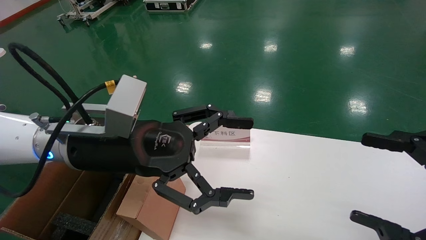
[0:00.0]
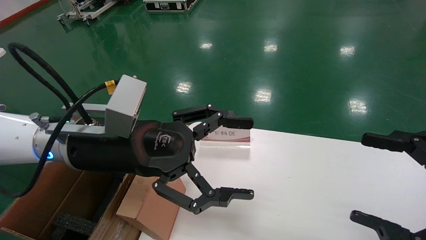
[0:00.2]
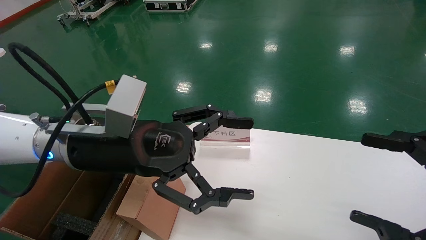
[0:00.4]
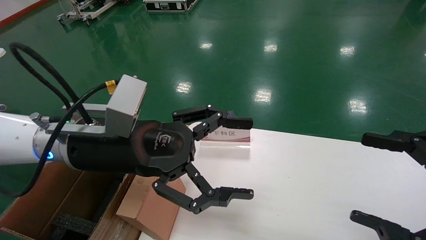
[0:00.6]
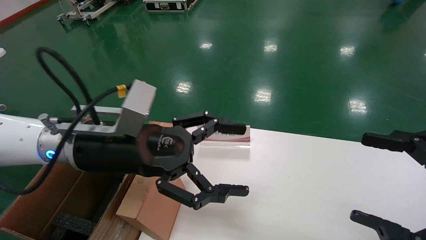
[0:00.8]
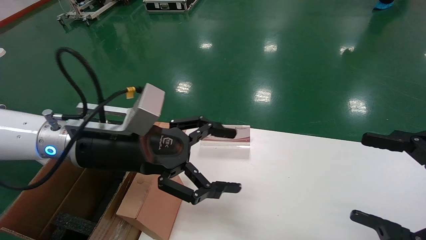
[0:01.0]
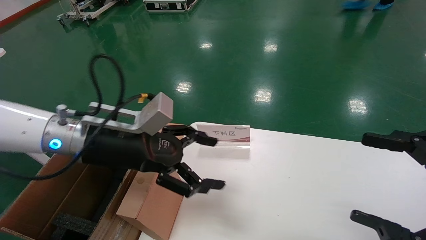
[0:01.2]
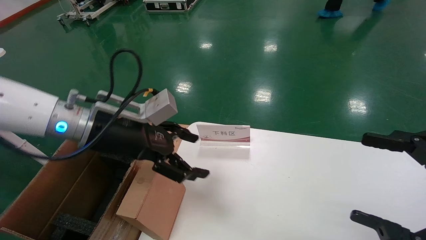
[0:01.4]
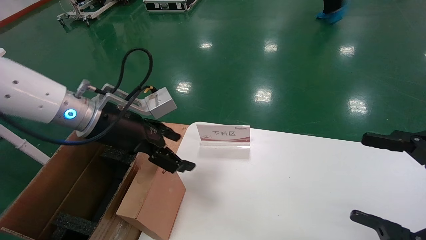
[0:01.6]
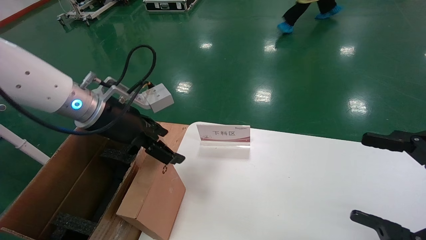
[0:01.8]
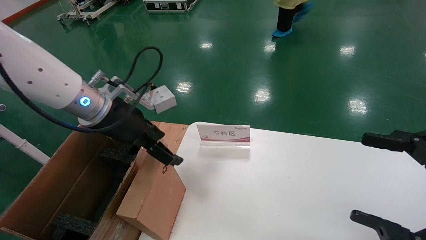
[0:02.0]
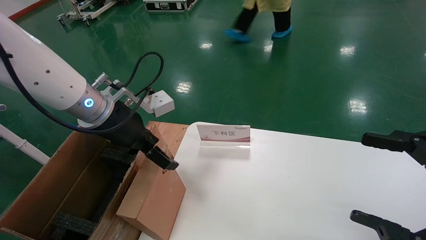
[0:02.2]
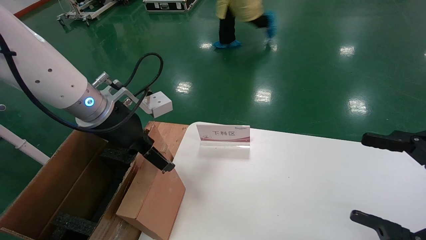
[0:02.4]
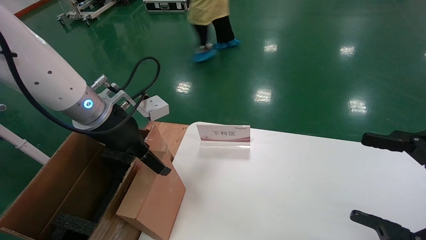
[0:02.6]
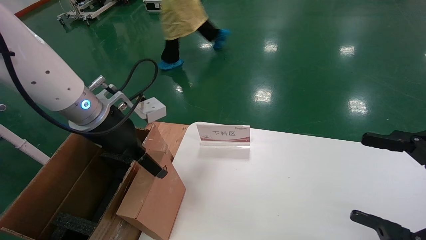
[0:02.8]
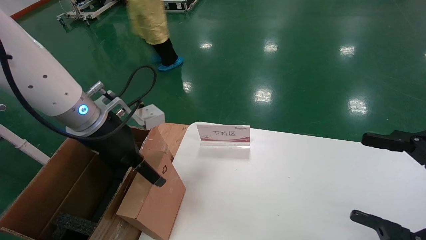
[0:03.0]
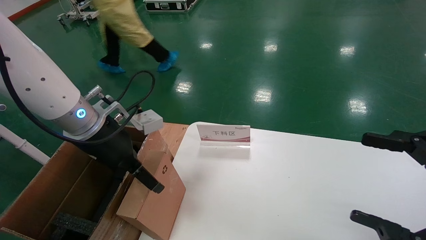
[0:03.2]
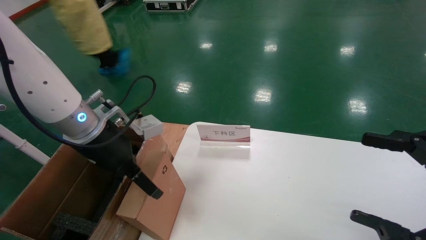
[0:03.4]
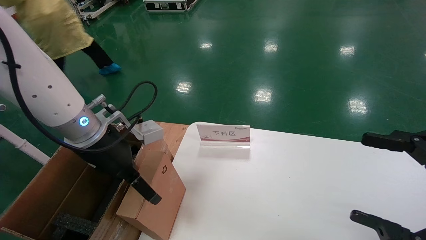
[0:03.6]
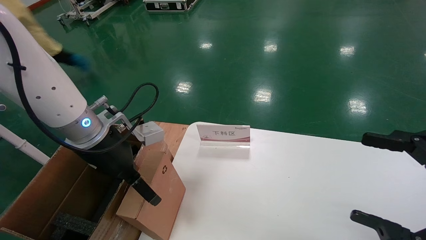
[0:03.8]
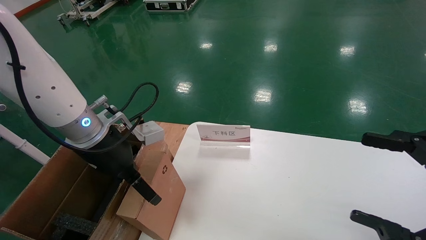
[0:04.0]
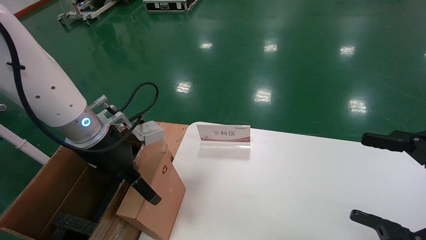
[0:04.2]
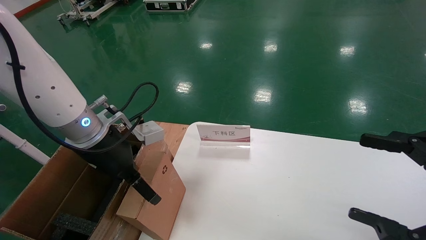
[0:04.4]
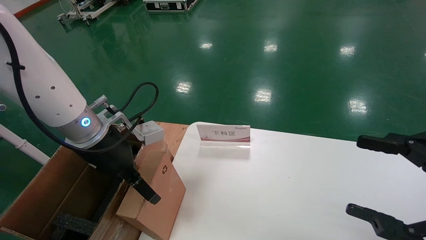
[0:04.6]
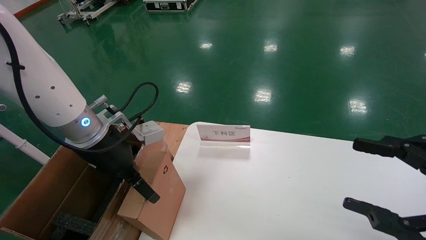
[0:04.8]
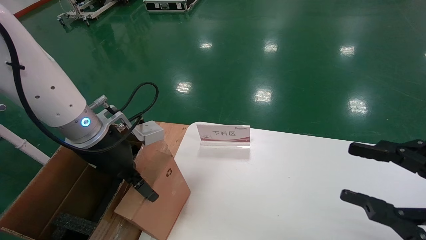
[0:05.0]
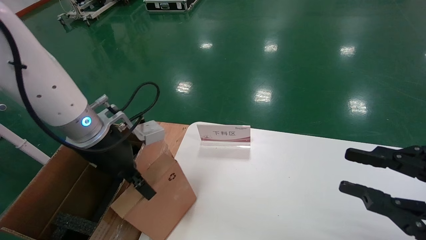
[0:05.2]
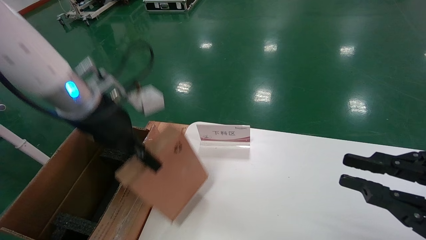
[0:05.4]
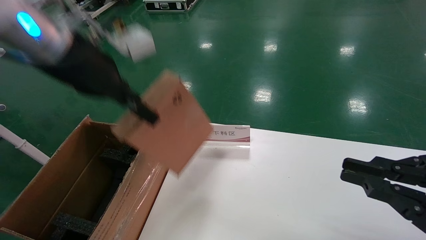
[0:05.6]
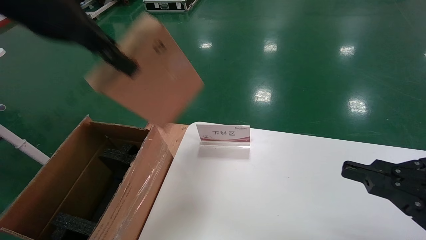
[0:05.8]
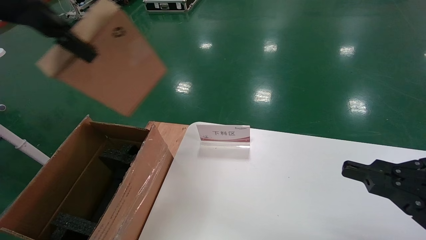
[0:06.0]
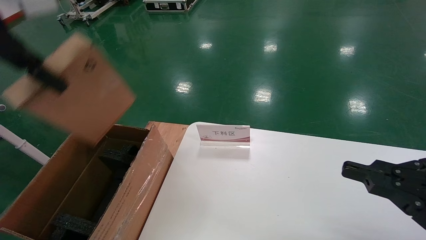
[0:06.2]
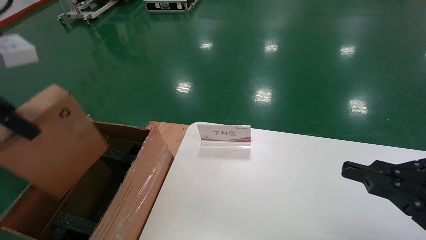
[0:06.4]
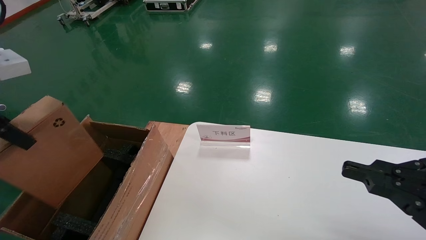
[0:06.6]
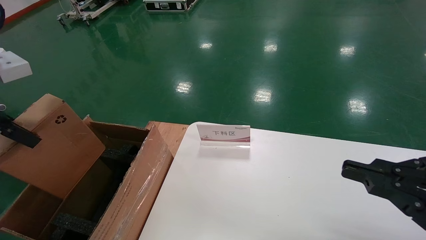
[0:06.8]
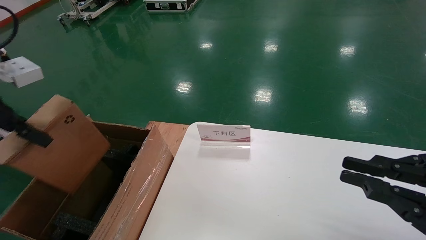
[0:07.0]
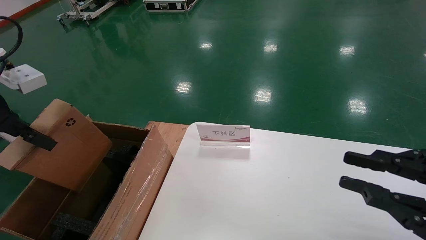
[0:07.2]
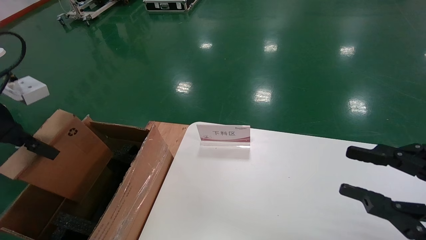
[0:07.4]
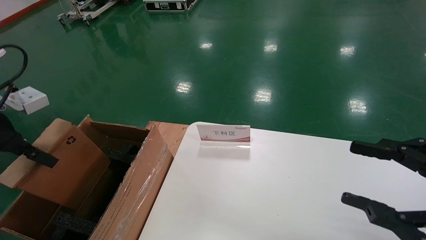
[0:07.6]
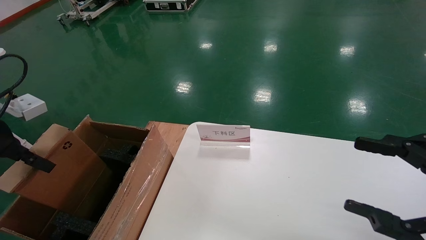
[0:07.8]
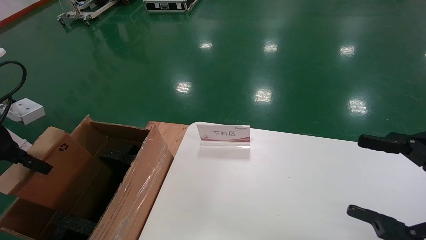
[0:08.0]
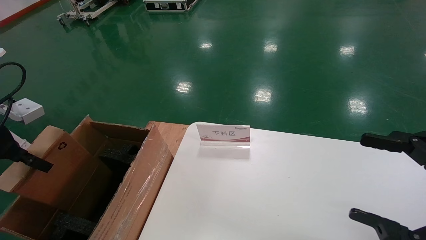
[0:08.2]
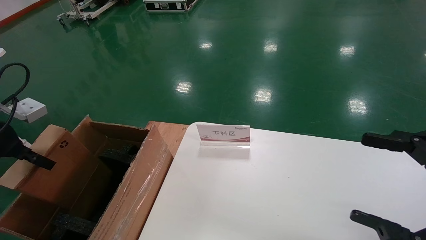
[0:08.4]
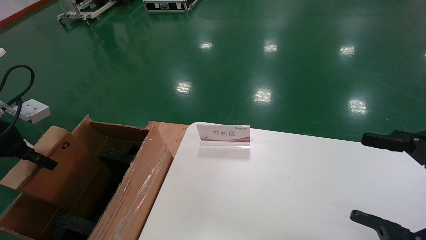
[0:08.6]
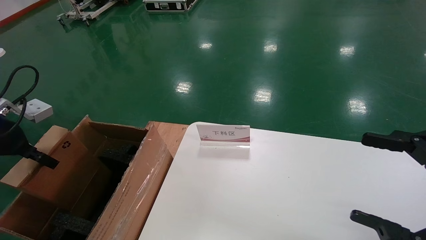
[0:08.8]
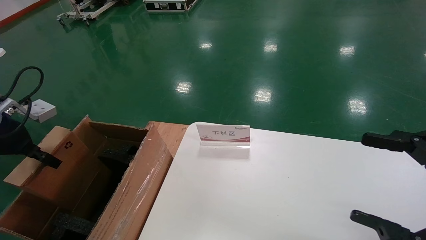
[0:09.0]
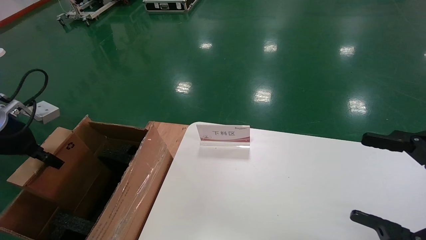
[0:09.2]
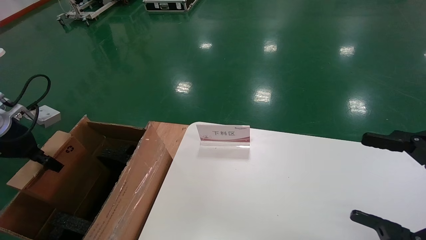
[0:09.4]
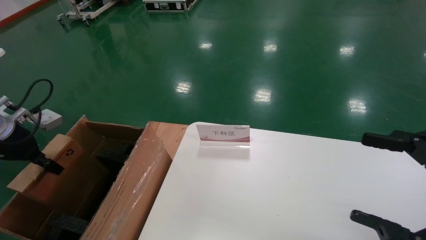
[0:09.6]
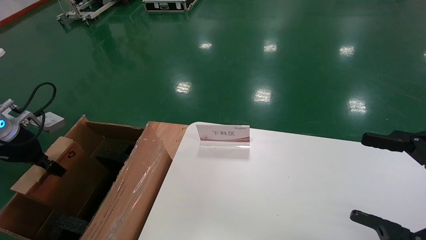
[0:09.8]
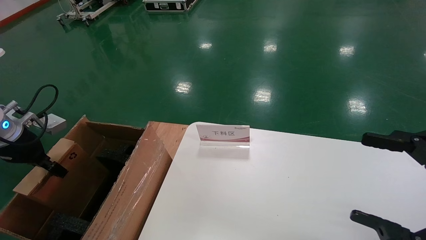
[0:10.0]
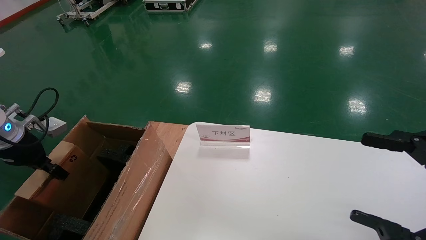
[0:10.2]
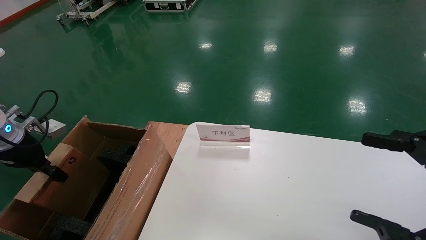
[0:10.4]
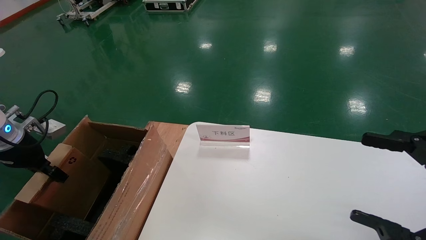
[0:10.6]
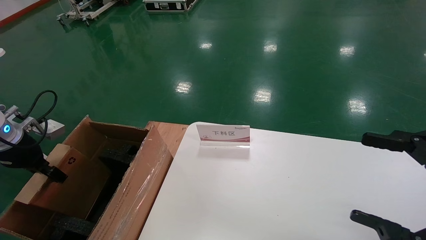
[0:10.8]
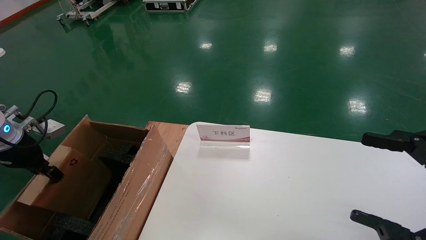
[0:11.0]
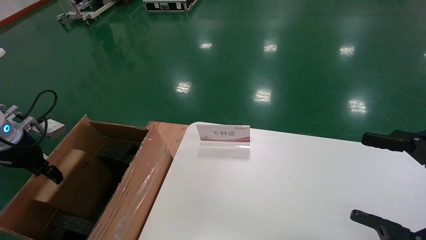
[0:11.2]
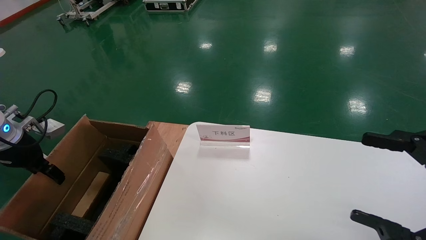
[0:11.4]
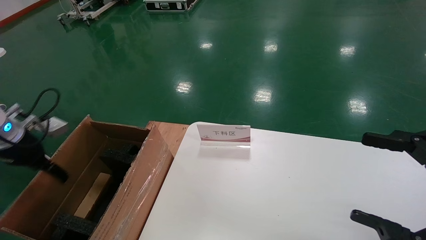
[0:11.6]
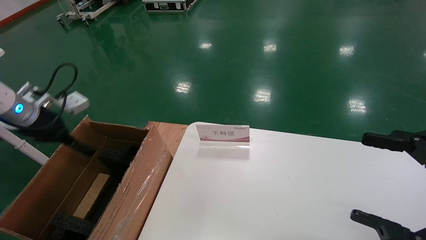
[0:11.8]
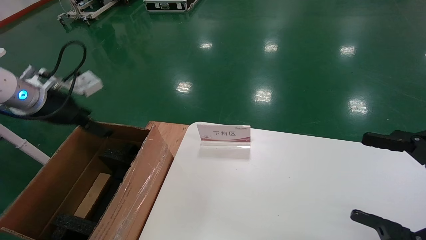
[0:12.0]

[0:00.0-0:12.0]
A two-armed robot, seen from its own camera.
Task of the whole recording: pick up the small cardboard box and load it into the large cardboard box.
Step, 0:01.0 to 0:05.2: Pick up the mouse and power cord box.
Step, 0:05.4 to 0:11.2: Place the mouse and power cord box into the case.
0:00.0 to 0:01.6: The left gripper moves forward, some 5 cm.
0:03.0 to 0:04.4: There are only small adjustments of the grippers.
0:04.4 to 0:06.0: The left gripper goes some 20 cm upward, and closes its fingers. Meanwhile the right gripper closes its fingers.
0:06.0 to 0:07.6: The left gripper shifts some 20 cm downward and to the left; the right gripper opens.
0:07.6 to 0:09.0: The right gripper opens; the left gripper shifts some 5 cm forward.
0:09.0 to 0:10.4: The left gripper is displaced downward by about 5 cm.
0:10.4 to 0:12.0: The left gripper travels upward and to the right by roughly 10 cm, and opens up.

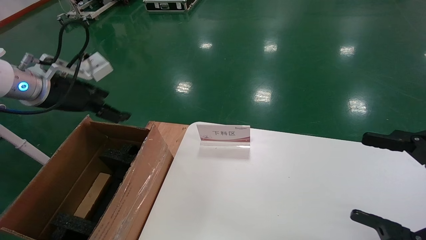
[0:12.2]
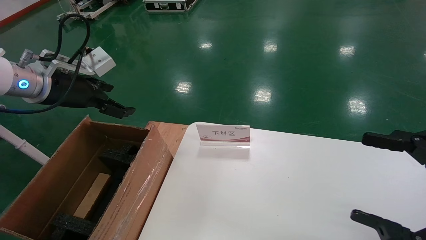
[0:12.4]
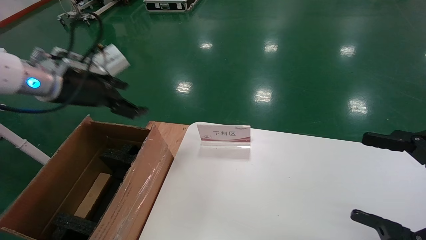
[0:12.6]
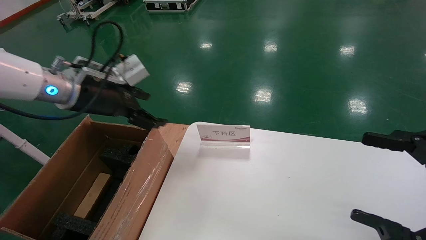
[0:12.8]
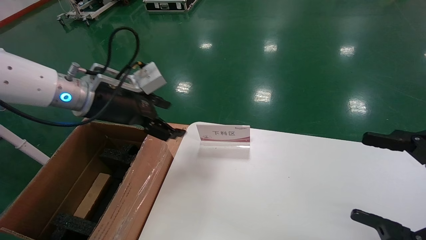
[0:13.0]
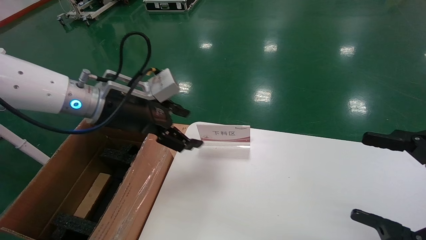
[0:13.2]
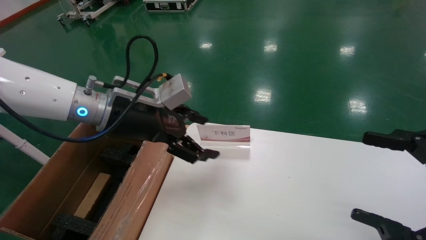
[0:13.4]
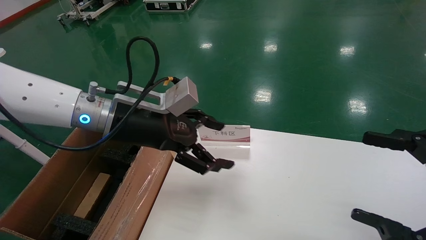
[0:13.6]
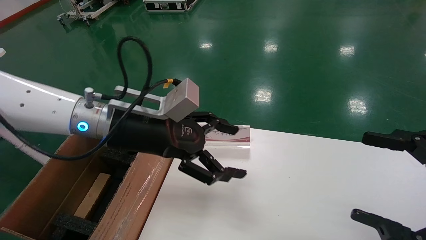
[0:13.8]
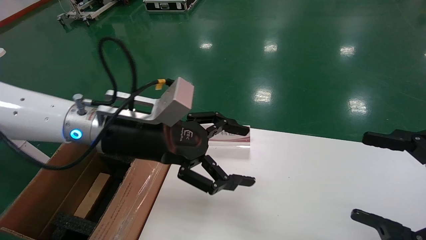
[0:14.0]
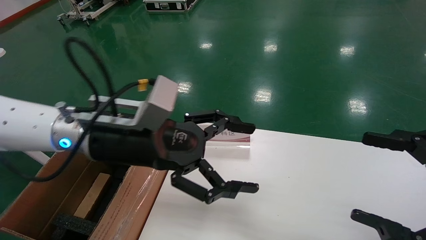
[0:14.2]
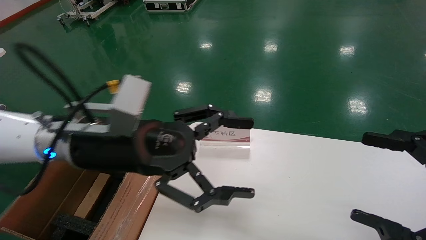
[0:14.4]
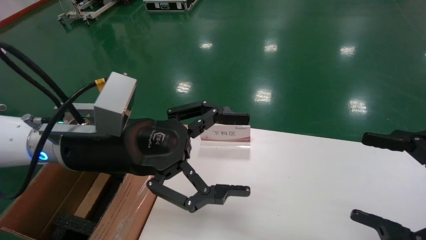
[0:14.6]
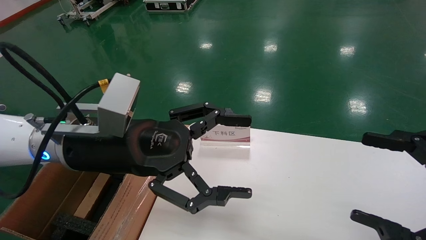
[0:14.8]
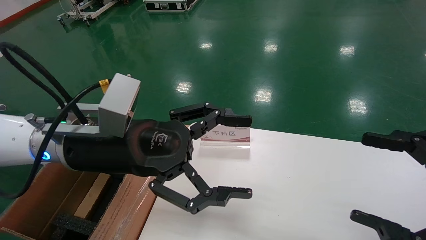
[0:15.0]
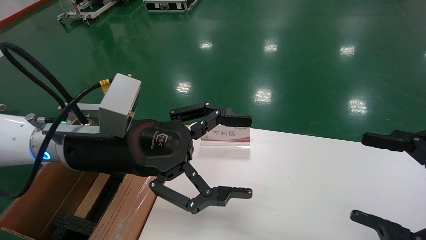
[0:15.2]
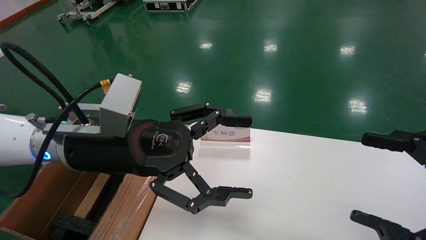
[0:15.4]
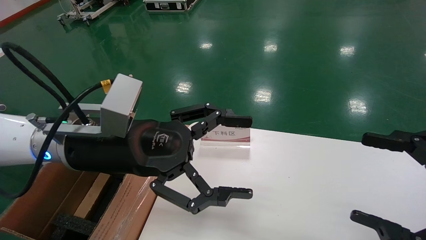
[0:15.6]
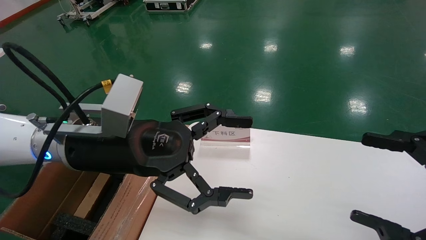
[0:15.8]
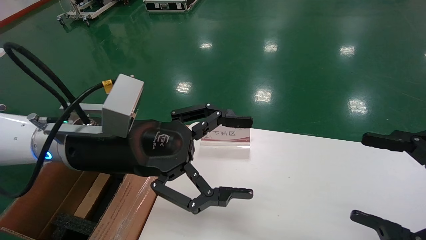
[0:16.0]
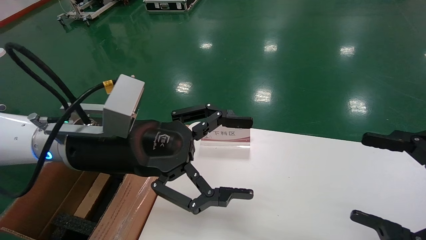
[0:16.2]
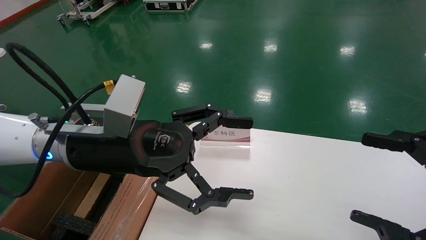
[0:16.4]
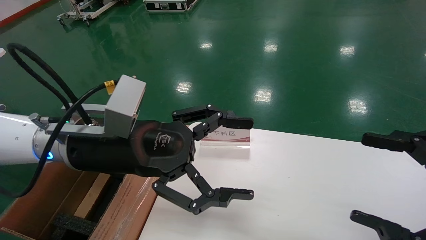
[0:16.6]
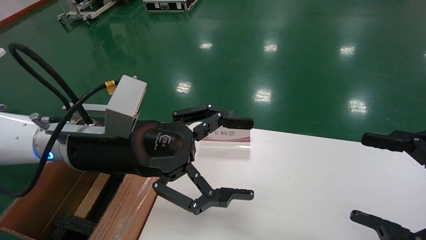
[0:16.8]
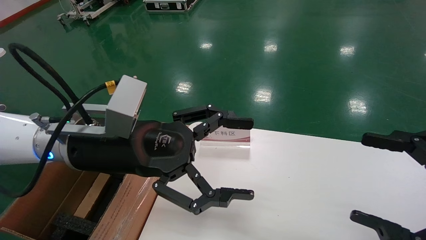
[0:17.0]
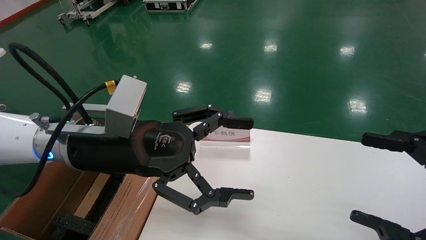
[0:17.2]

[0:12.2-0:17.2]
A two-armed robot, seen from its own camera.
Task of the whole recording: pick up the small cardboard box and load it into the large cardboard box.
0:12.2 to 0:13.8: The left gripper moves to the right, roughly 20 cm.
0:13.8 to 0:15.6: The left gripper goes about 5 cm backward.
0:15.6 to 0:17.2: Both grippers stay about where they are.
